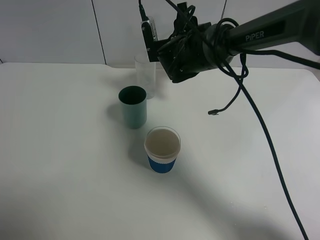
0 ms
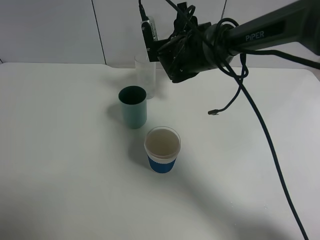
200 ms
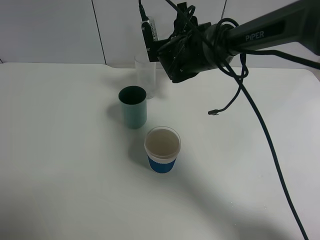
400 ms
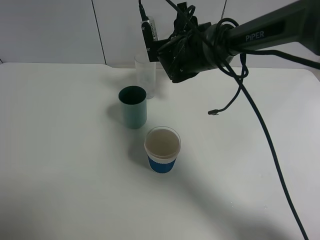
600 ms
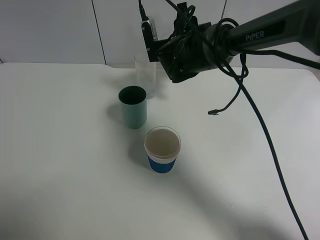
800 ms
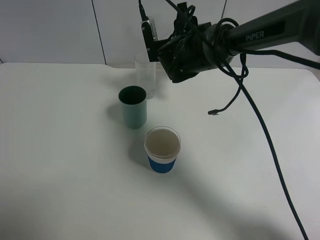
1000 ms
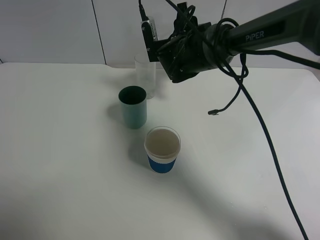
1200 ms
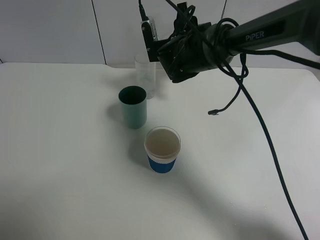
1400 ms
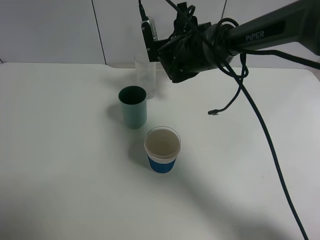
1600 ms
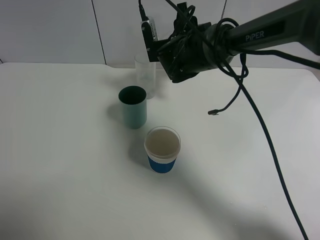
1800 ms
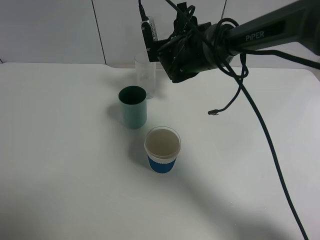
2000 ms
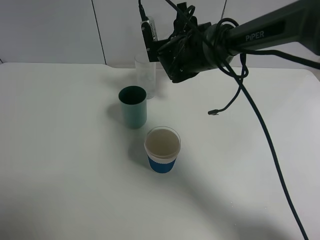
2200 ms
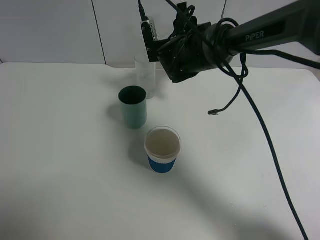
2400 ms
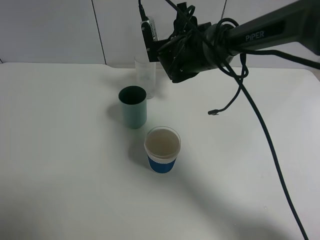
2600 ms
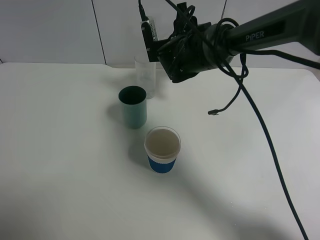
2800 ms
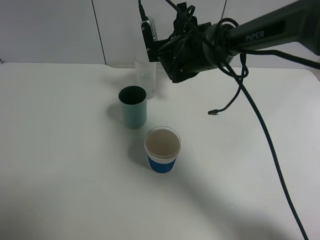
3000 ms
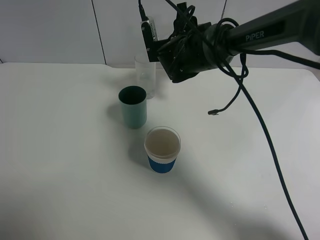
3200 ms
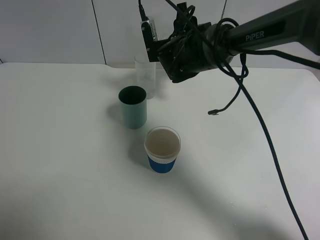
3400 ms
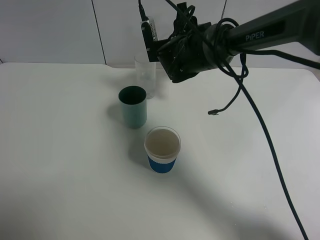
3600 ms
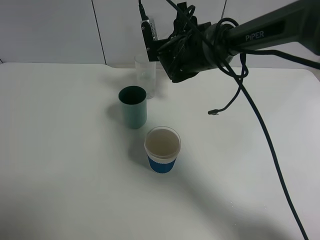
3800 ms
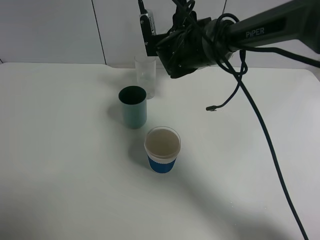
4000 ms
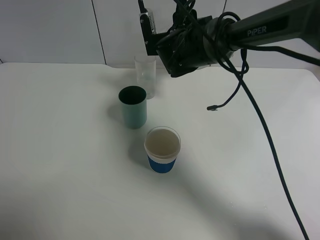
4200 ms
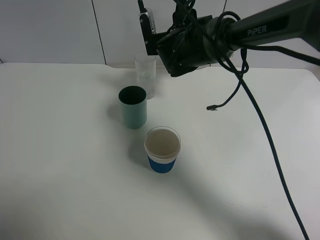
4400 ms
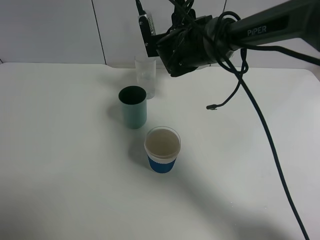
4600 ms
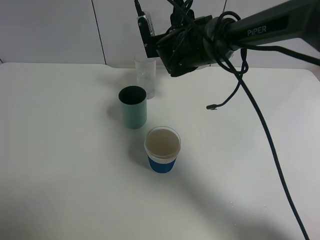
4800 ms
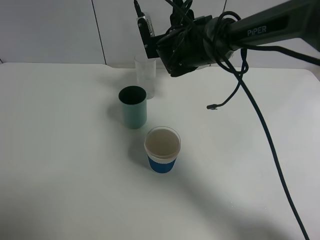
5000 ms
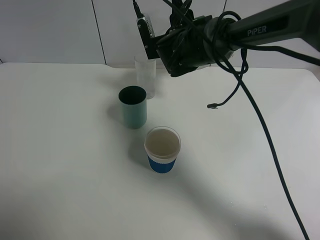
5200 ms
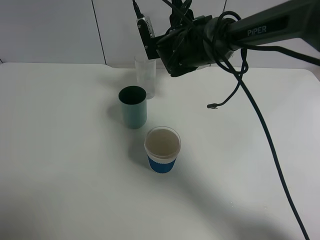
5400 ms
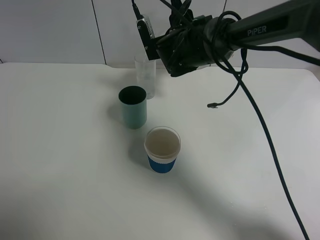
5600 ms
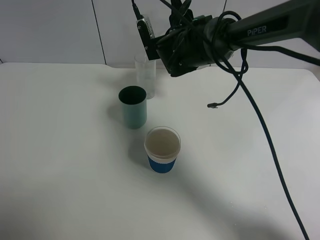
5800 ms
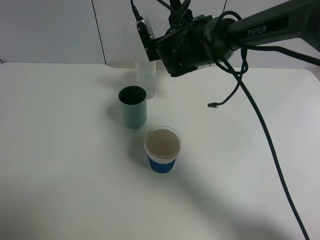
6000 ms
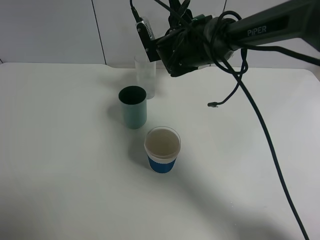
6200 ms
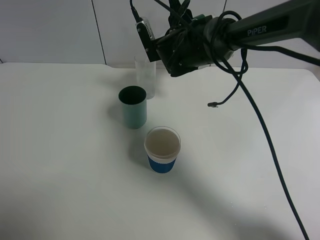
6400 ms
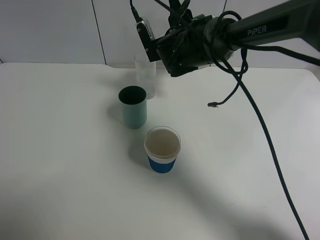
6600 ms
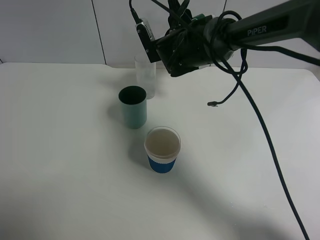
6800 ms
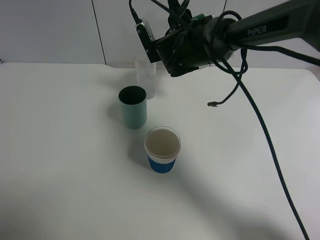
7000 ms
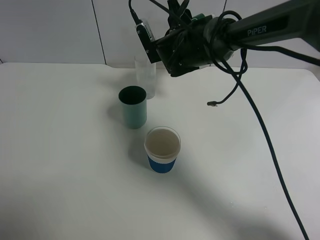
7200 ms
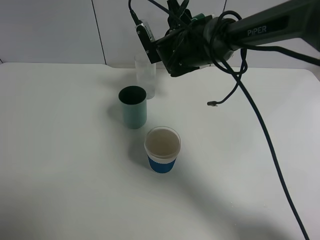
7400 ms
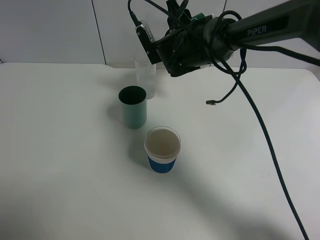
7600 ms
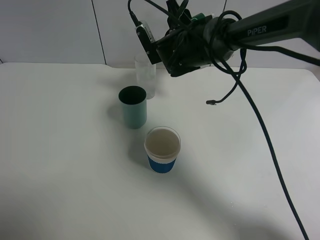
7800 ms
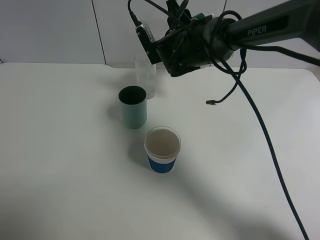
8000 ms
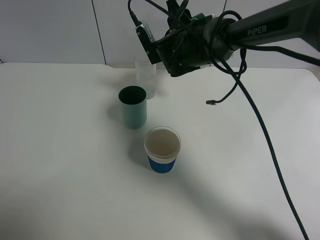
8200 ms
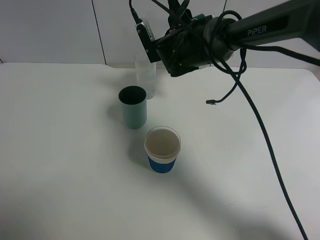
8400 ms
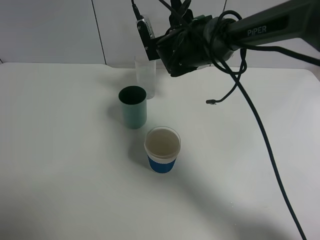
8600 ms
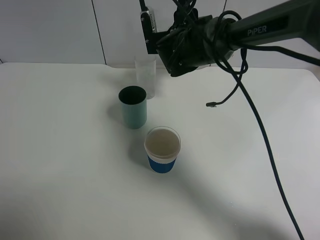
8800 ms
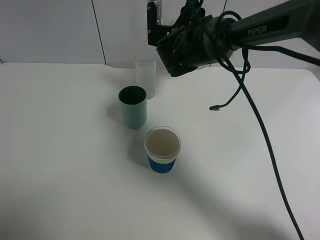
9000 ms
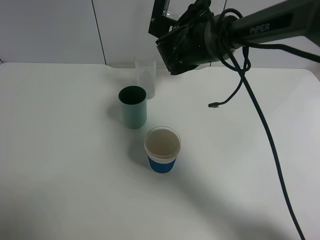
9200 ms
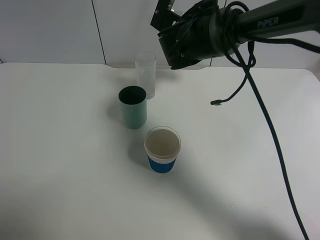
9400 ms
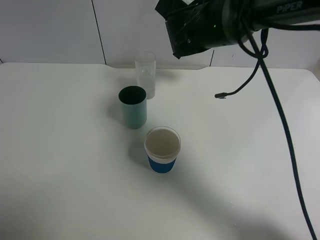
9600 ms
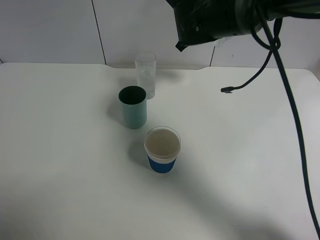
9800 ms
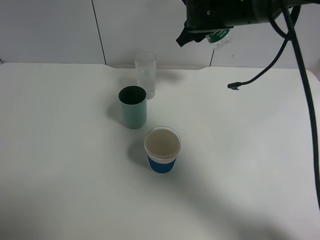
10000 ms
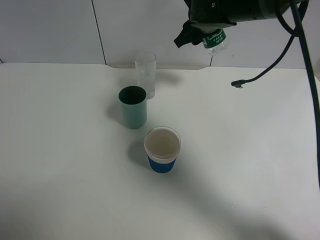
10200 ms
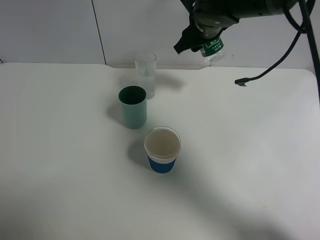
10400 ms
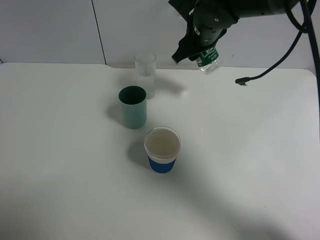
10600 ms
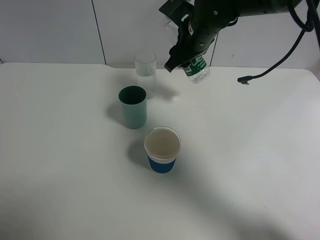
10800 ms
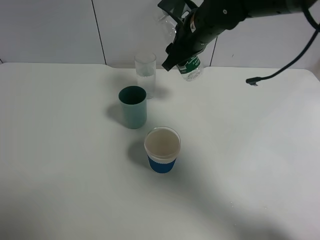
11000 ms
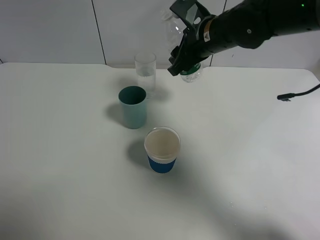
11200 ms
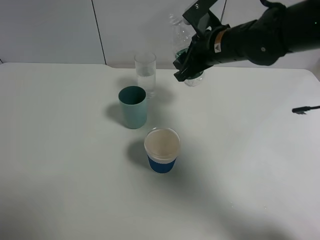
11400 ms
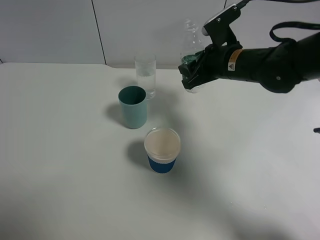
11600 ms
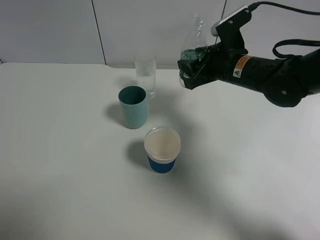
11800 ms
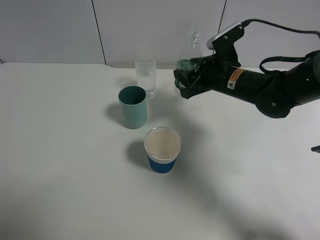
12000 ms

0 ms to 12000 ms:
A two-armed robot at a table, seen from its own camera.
Task of the whole recording: use a gripper to hold the bottle of the drink and pour it into a random cup.
Step, 0 ms to 9400 ms: Pour the mineral water into the glass with the right gripper.
0 ms to 4400 ms: The two grippers keep their place.
4400 ms to 6000 ms: The grippers make only small movements.
6000 ms to 7600 ms: Both grippers stay about where they are.
9000 ms to 10400 ms: The right gripper shifts by approximately 5 cm.
10400 ms to 12000 ms: The right gripper moves downward, to the right and backward, some 15 cm.

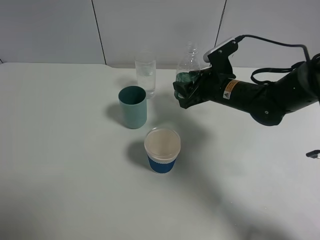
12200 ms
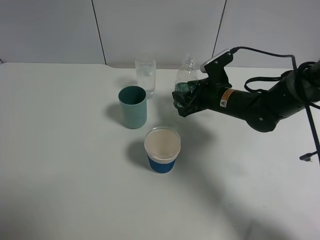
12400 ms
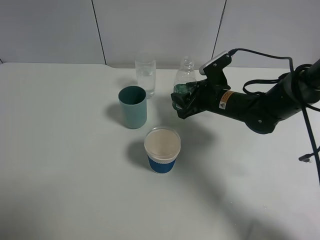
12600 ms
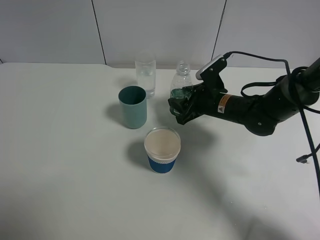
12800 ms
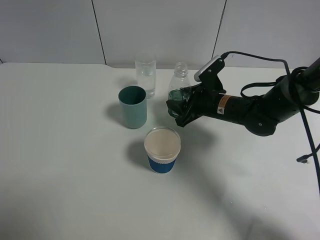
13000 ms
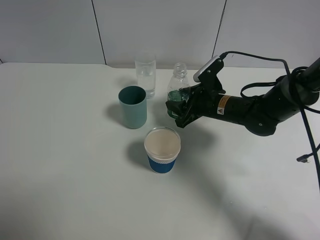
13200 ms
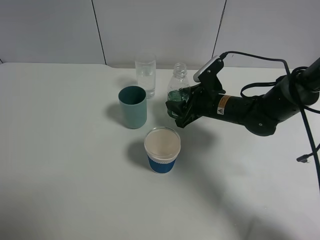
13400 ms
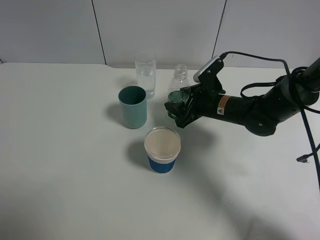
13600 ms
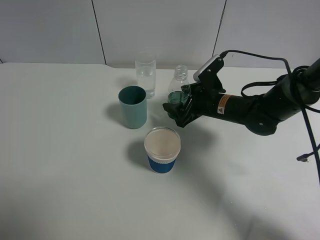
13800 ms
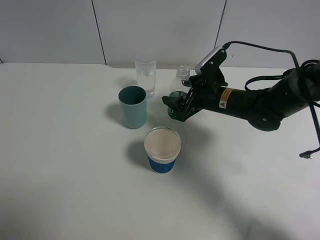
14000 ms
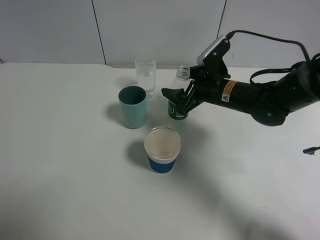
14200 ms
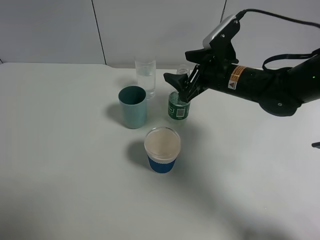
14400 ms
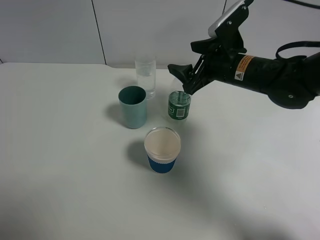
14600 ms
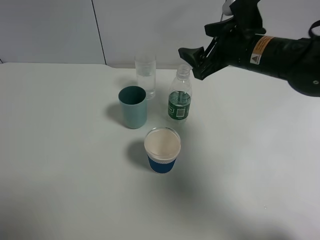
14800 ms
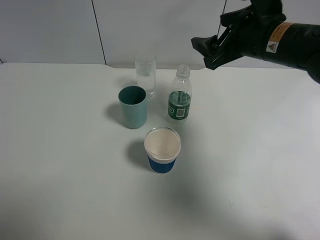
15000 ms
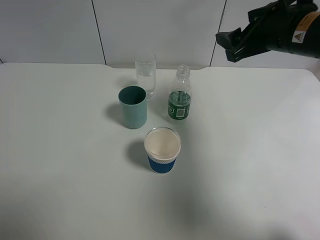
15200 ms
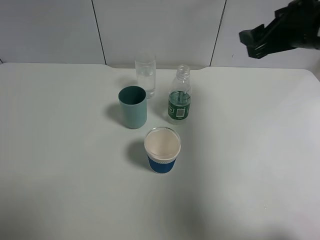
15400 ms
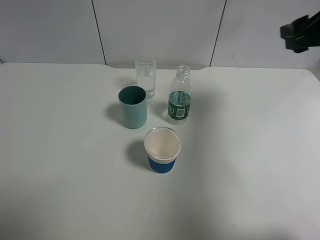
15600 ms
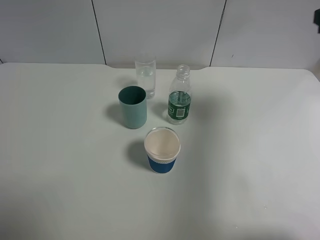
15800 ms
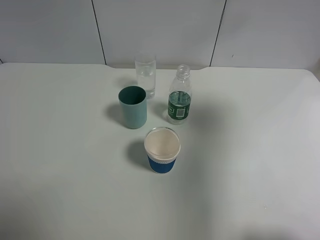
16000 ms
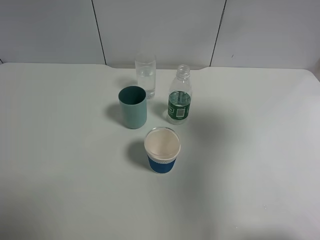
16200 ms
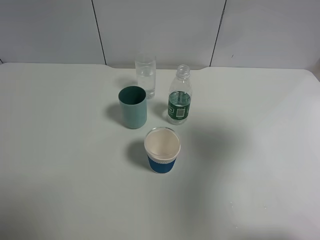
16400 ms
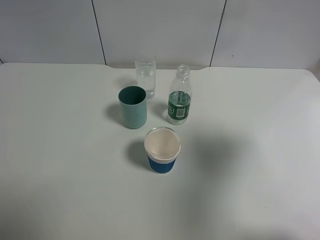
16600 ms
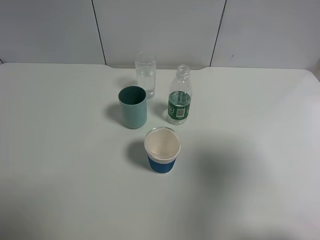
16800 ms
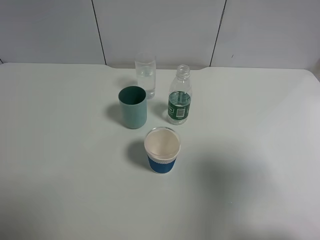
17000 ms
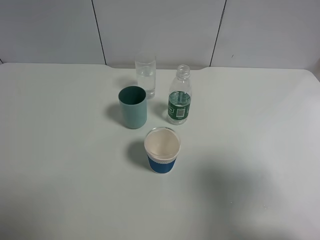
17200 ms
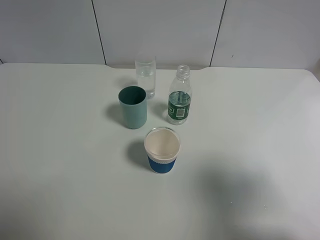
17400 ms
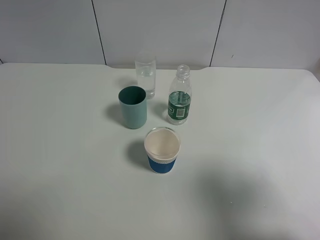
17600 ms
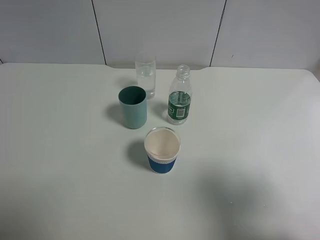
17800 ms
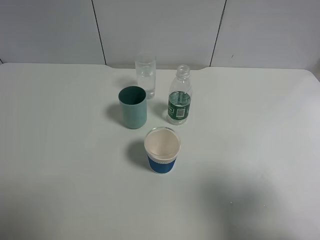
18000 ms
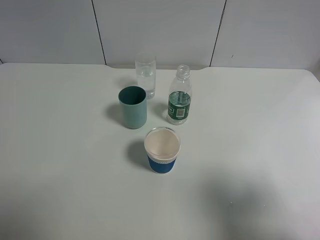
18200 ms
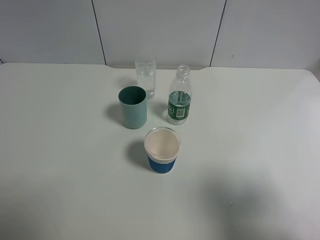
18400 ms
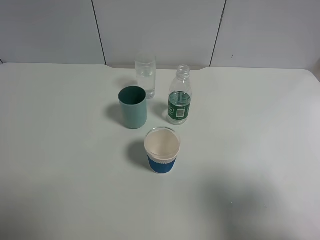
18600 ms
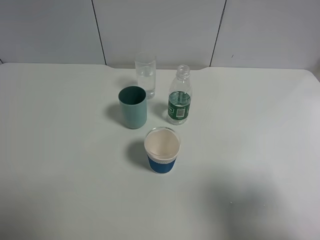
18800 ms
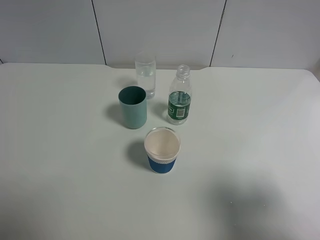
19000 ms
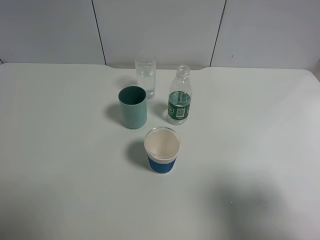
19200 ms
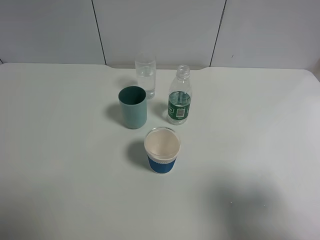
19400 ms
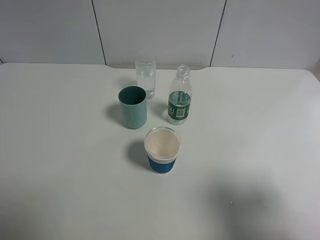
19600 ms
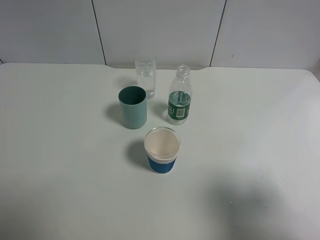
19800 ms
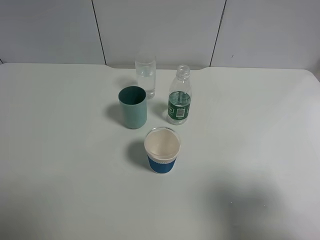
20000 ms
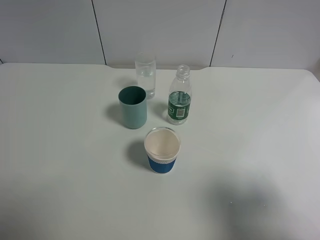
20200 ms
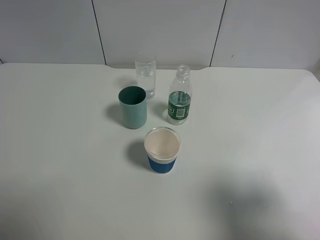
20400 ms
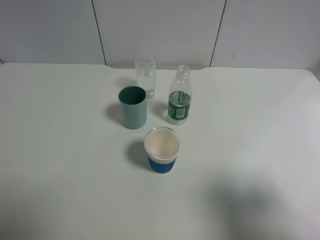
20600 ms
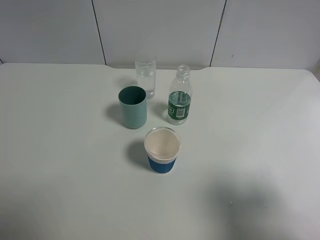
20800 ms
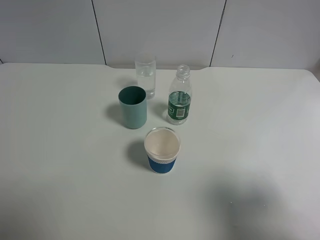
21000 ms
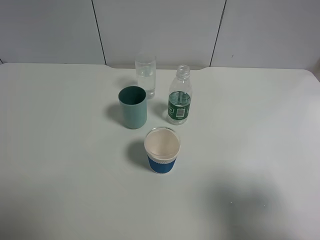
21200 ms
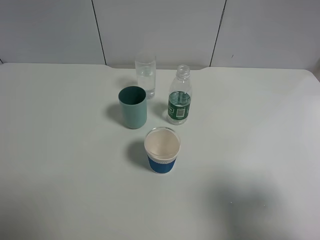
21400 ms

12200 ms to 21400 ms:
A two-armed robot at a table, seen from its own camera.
Task of the whole recording: use a gripper to hold the bottle of the drink and pour it into a random cup.
Step, 12200 ms to 14200 ms: Place the mineral water bottle on the table with the right gripper.
12200 ms to 13800 ms: The right gripper opens up.
13800 ms to 15200 ms: The right gripper is displaced upward by about 20 cm.
15200 ms to 16800 ms: The right gripper moves backward and to the right, about 25 cm.
16800 ms to 18400 ms: The right gripper heads backward, covering some 5 cm.
19800 ms to 21400 ms: The two grippers keep their place.

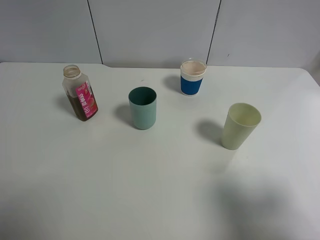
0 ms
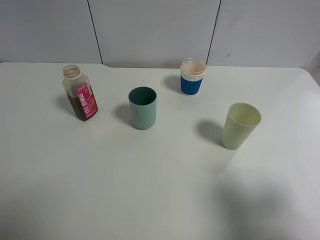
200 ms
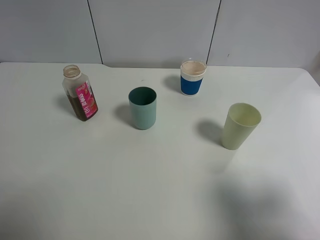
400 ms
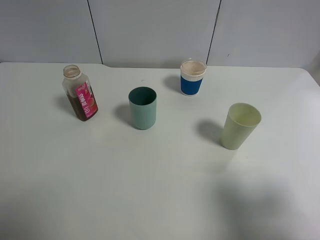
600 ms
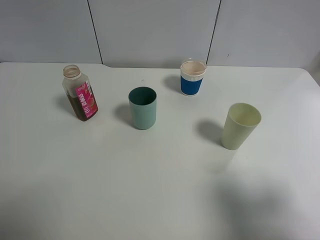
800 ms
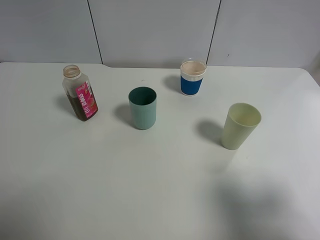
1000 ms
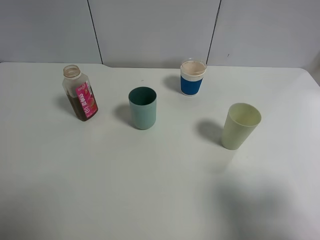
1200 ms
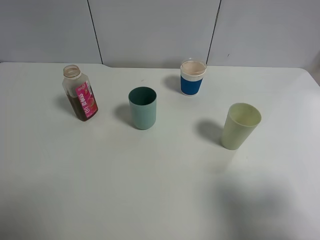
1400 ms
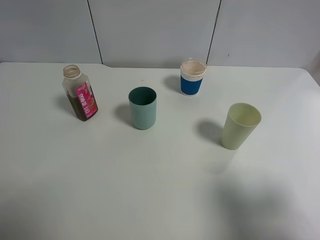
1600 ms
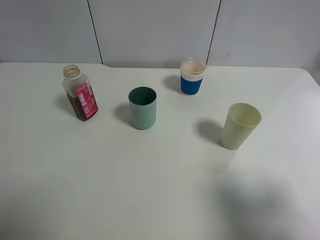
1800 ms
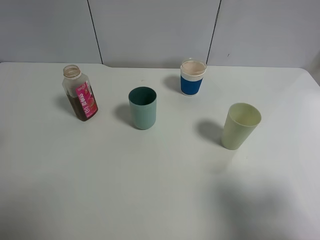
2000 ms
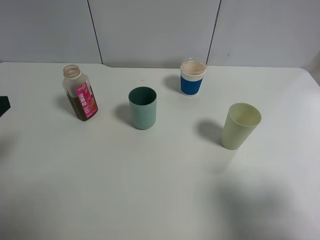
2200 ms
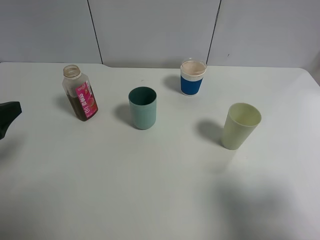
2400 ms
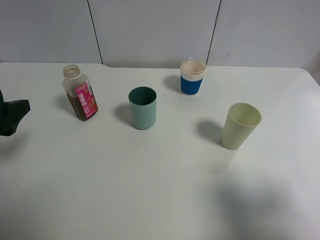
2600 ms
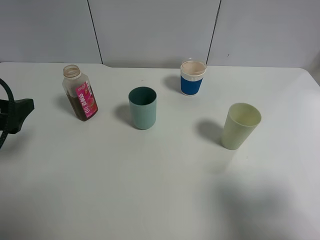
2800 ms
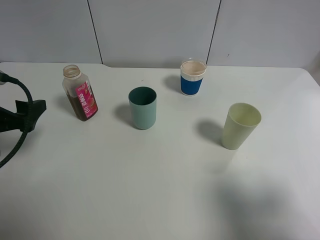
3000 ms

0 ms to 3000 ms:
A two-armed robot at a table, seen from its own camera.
Task of the whole recording: use a gripper to hold the bottle of the drink and pour it into a random cup.
1600 ms to 3000 ms: The left gripper travels forward and downward by some 15 cm.
